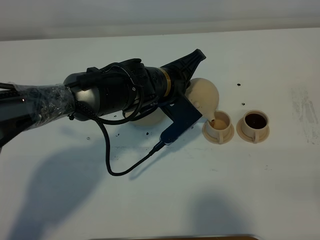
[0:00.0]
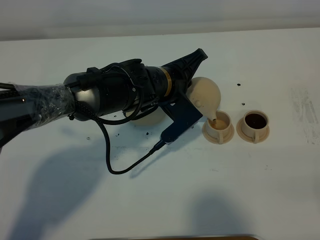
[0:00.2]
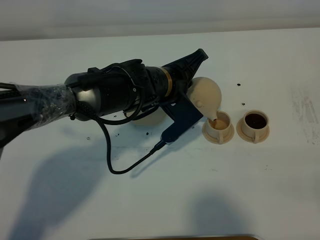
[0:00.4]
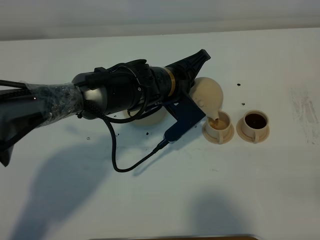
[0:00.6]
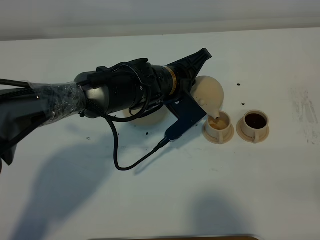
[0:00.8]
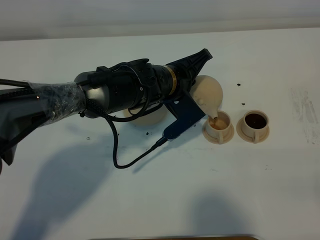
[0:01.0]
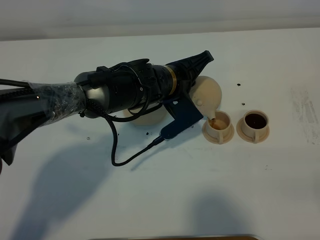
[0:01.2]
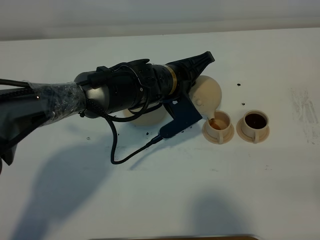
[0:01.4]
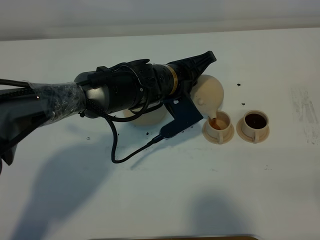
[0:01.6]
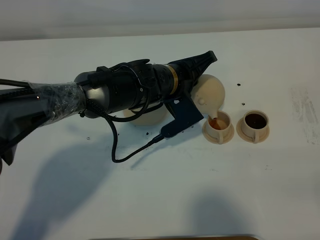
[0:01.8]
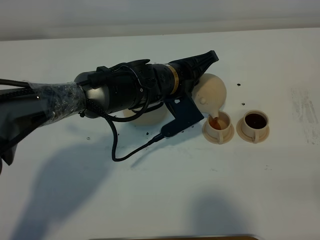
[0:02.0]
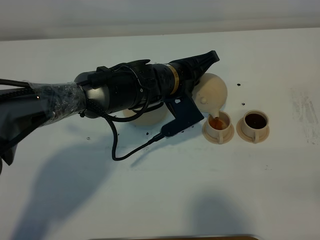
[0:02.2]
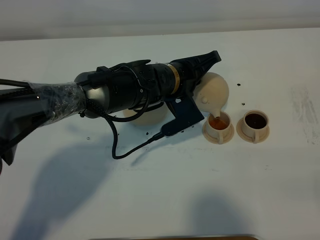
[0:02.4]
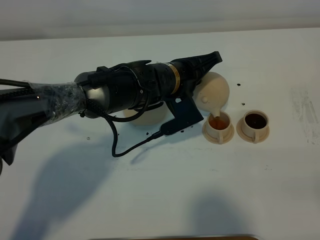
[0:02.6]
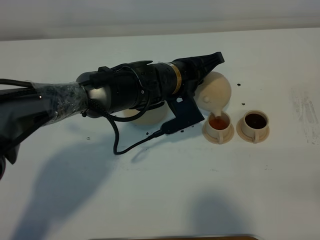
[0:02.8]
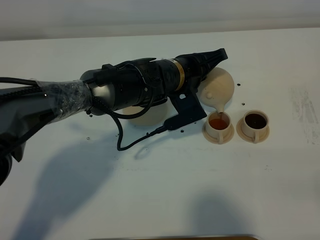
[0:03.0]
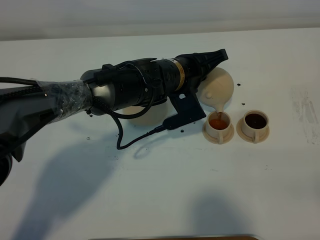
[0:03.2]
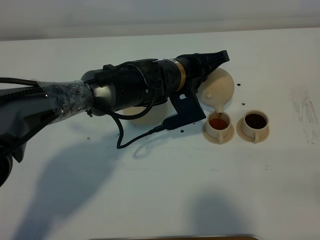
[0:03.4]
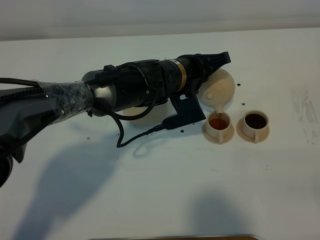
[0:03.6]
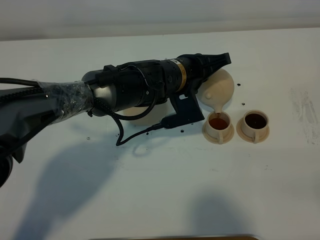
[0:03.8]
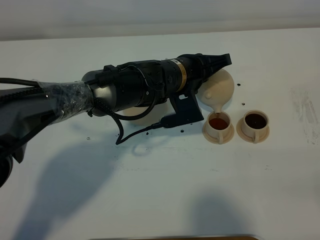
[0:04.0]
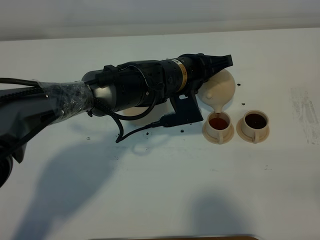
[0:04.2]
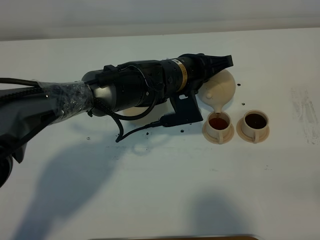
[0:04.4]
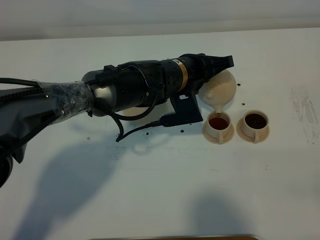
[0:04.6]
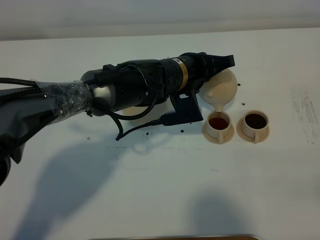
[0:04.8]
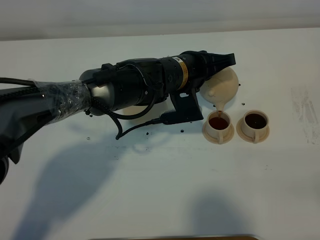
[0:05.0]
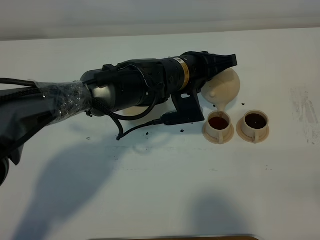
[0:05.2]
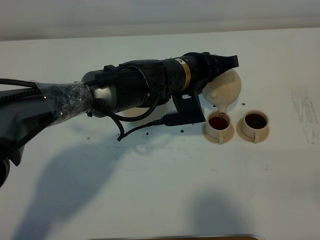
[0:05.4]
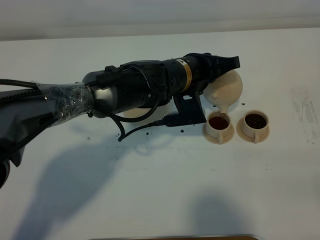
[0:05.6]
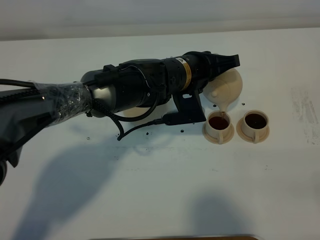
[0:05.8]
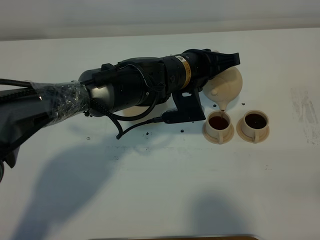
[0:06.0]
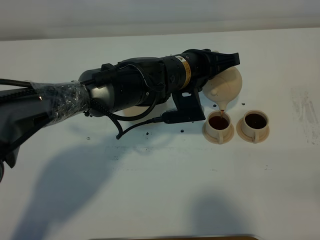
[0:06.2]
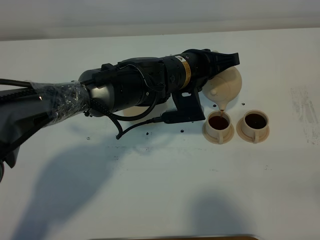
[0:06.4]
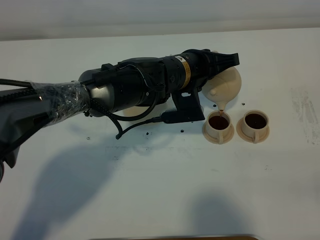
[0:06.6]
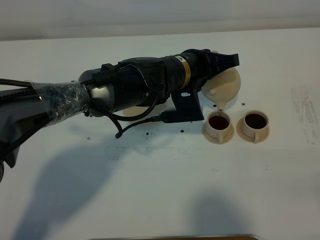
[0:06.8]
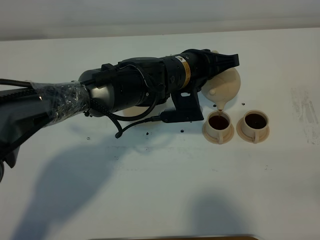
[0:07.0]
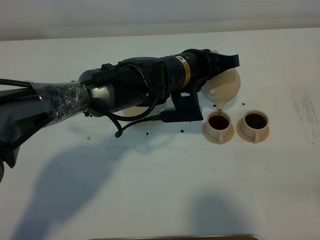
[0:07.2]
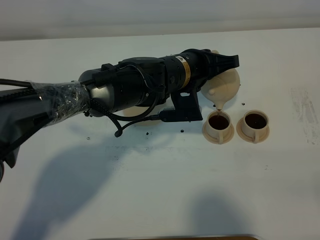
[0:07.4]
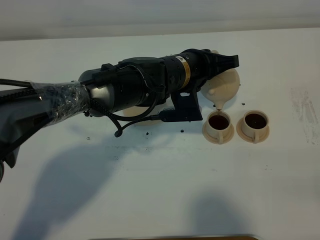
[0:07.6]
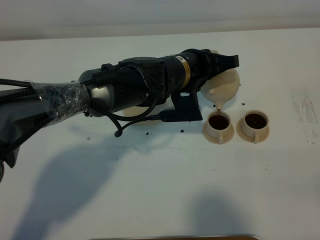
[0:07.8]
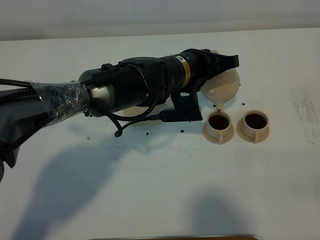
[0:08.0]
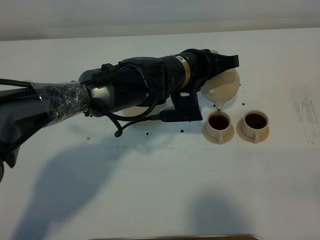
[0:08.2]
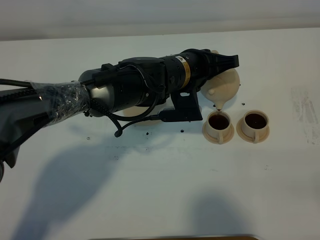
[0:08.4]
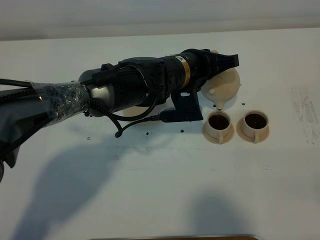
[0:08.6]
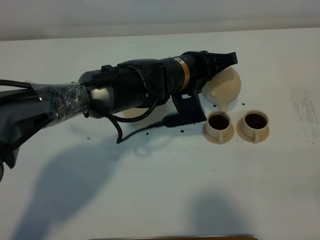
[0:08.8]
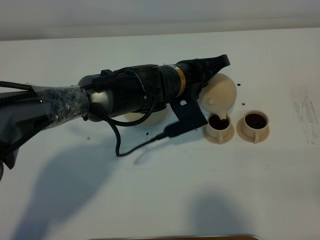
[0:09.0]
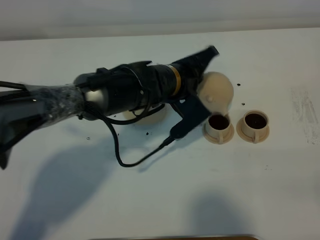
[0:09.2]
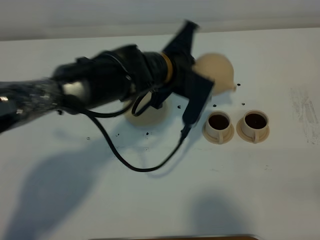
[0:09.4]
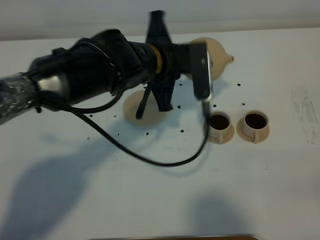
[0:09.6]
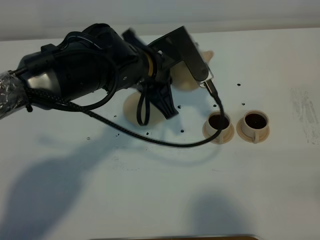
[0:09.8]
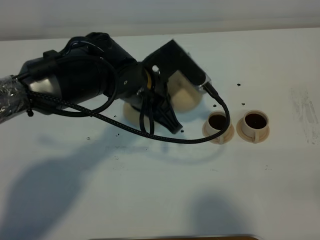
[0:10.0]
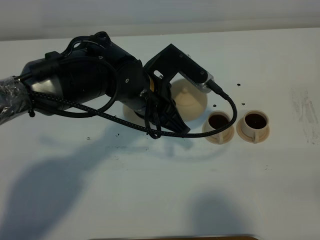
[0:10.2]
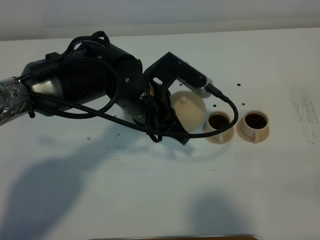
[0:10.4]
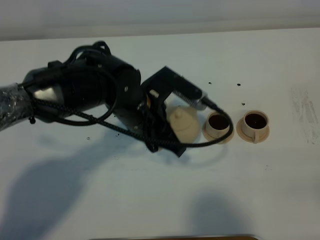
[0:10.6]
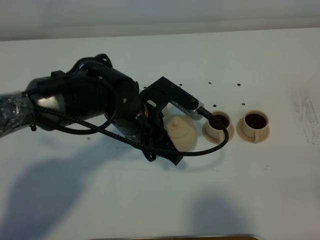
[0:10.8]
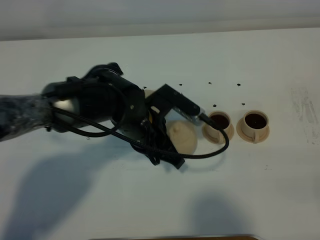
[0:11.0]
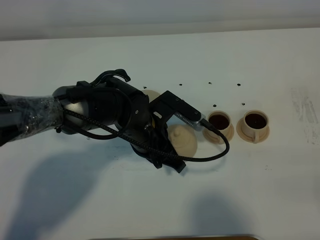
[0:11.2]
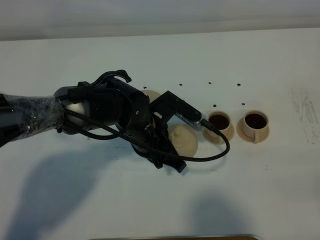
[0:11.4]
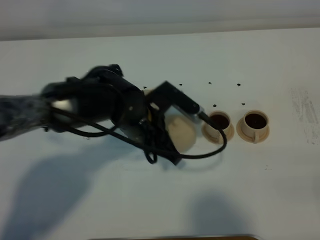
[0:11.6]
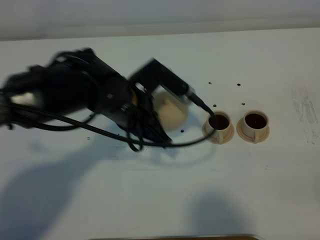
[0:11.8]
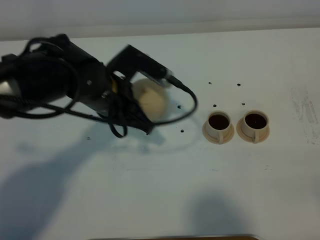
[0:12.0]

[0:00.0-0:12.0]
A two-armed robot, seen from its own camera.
Task of the whole recording: grasp the brown teapot and pour the tea into the two brown teacups one by one, put the brown teapot back in its original place.
Step, 0.0 to 9.0 s: Pour tea into the teacup with the left gripper.
0.0 to 3.0 s: The grippers move only a little.
3.0 to 6.0 s: The grippers stay close to where they were, moving slightly.
6.0 to 7.6 s: The two grippers keep their place.
9.0 to 10.4 s: The left gripper heads to the left and backward, covering roughly 5 cm.
10.4 to 12.0 s: The left gripper shifts about 5 cm to the left, and reaches some 5 cm downward, then returns.

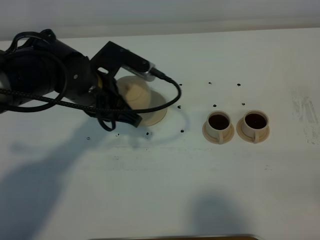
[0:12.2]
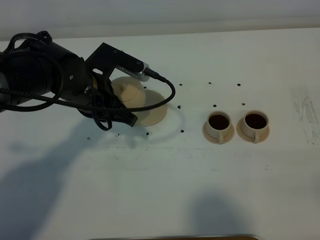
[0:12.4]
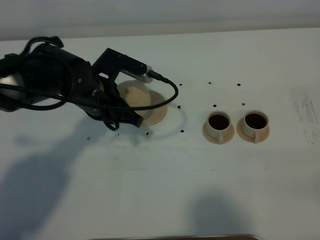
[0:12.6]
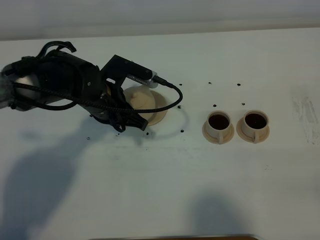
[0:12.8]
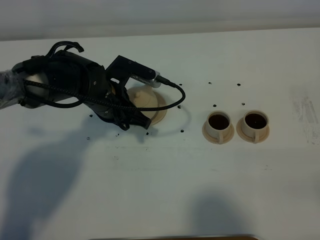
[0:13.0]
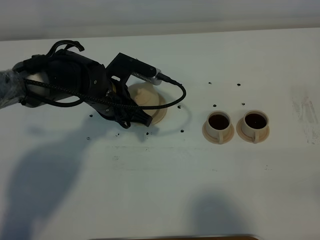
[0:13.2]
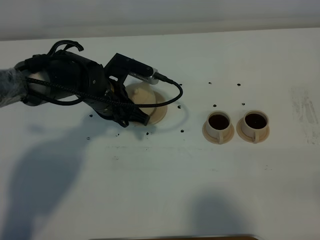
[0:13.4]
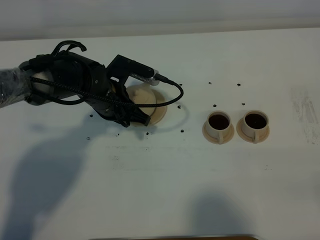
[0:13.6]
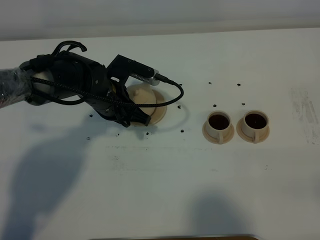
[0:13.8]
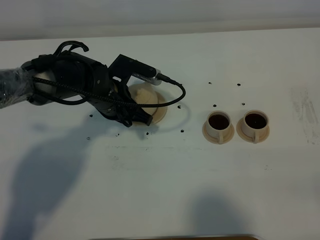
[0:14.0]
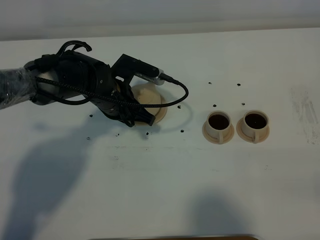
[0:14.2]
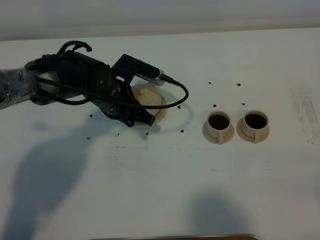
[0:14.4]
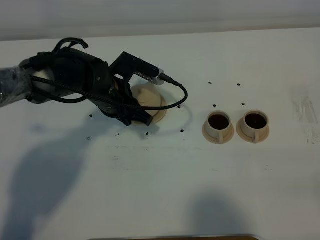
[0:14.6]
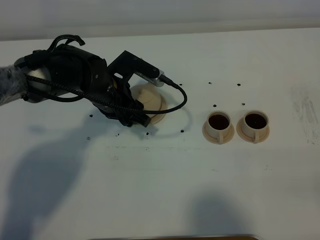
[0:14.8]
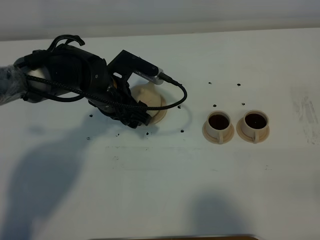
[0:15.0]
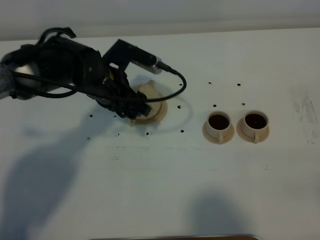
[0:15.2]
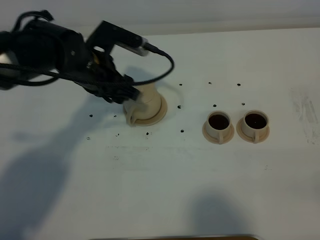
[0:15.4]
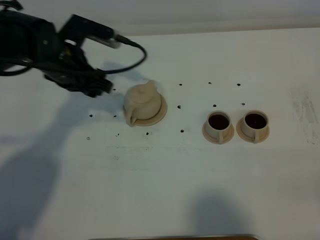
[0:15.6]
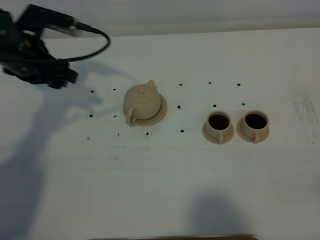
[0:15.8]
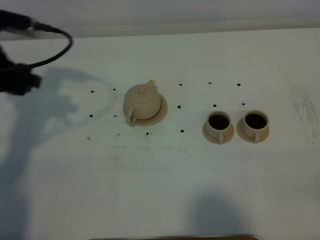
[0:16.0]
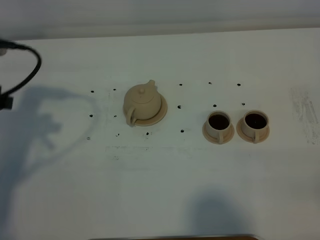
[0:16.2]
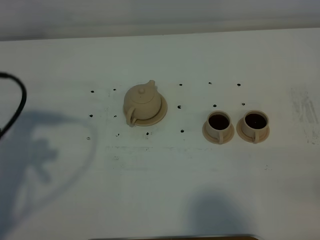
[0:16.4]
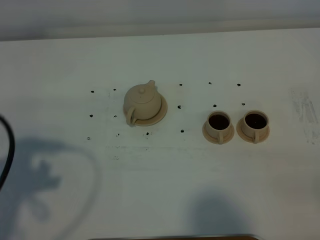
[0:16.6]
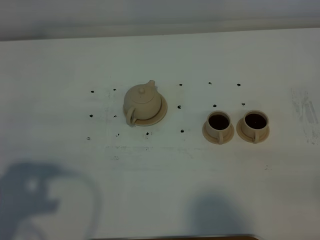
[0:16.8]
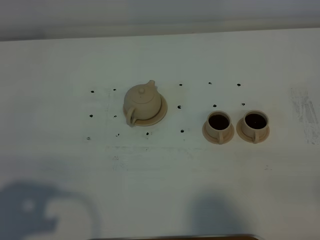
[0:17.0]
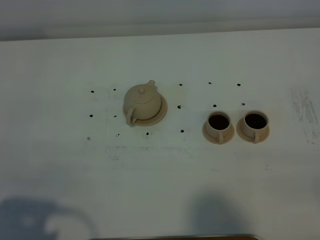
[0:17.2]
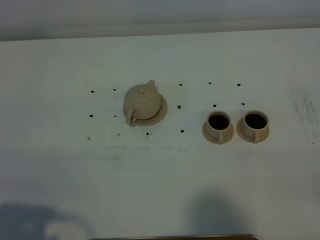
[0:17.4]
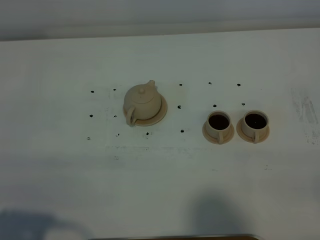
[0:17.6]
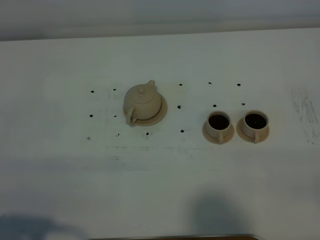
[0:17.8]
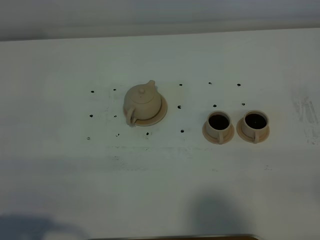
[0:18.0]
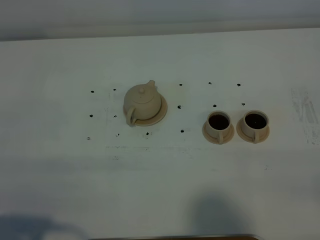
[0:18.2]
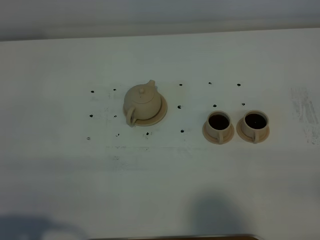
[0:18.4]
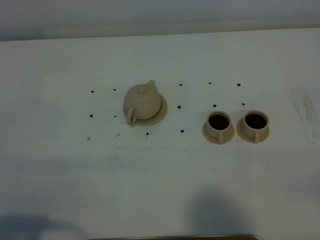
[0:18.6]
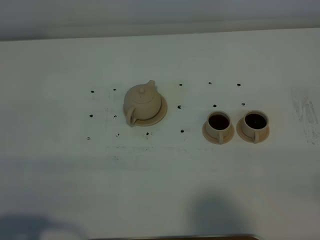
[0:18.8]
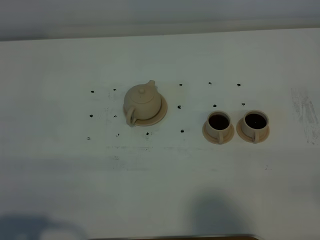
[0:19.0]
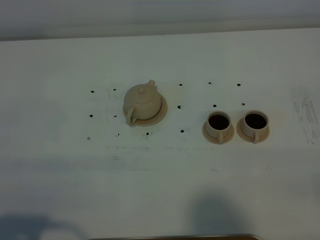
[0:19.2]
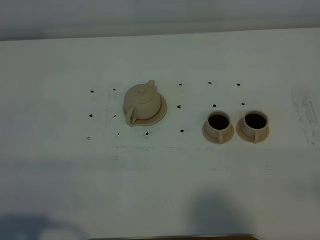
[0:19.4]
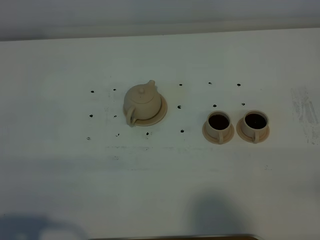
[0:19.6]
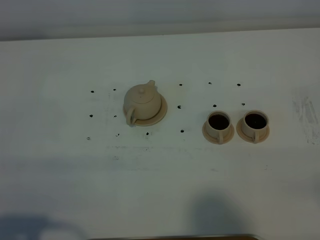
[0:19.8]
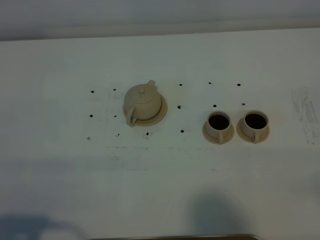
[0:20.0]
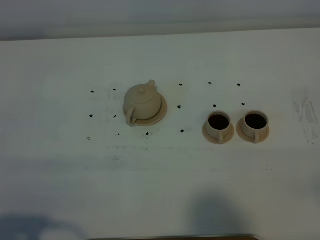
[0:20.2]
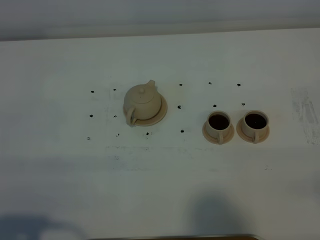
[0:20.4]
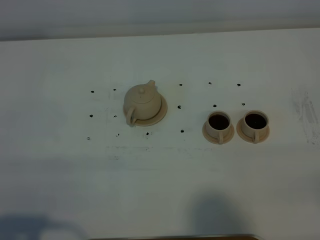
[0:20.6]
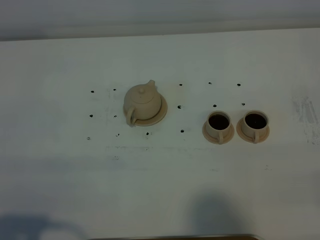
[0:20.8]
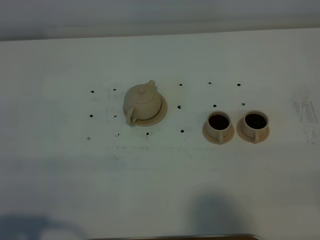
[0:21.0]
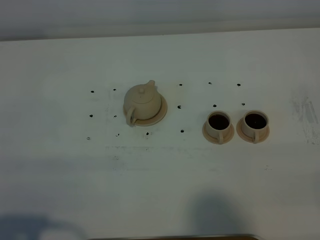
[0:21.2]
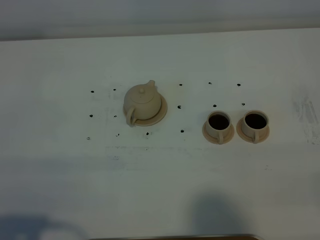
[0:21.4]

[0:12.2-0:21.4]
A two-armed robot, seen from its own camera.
Task of the whole recording: grasp the brown teapot and pour the tea into the two brown teacups one by one, put the brown teapot back in its original place.
12.2 to 13.8 s: The left gripper travels downward by approximately 5 cm.
13.8 to 15.2 s: The left gripper shifts some 5 cm upward, and opens its fingers.
15.2 to 16.8 s: The left gripper is displaced backward and to the left by roughly 35 cm.
16.8 to 18.4 s: The left gripper travels backward by roughly 5 cm.

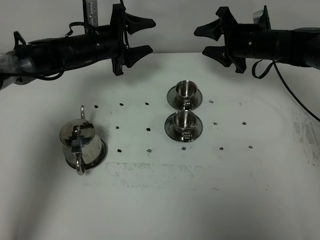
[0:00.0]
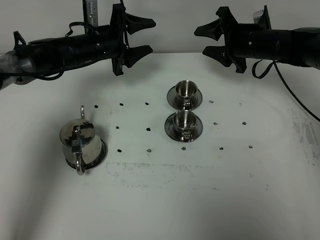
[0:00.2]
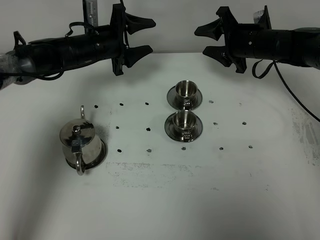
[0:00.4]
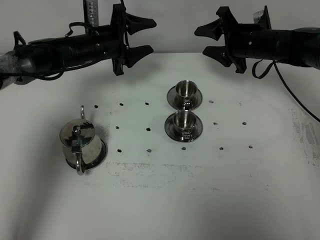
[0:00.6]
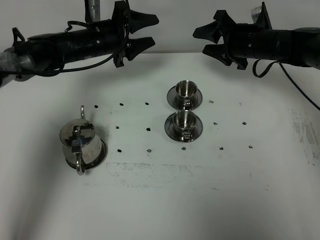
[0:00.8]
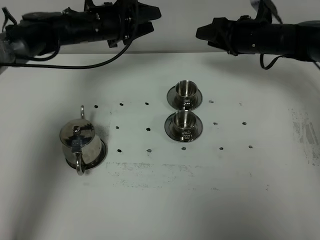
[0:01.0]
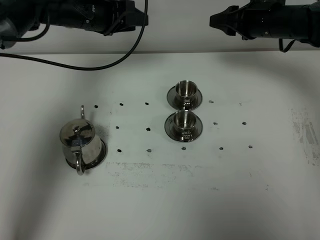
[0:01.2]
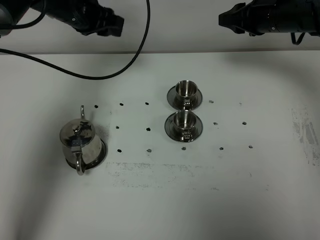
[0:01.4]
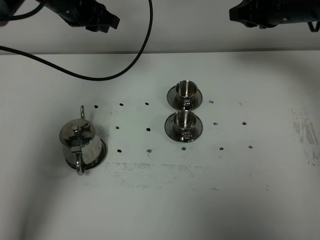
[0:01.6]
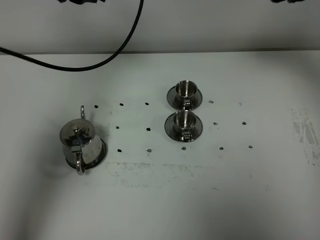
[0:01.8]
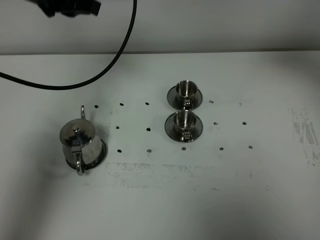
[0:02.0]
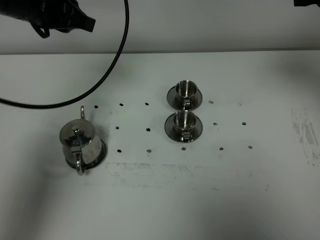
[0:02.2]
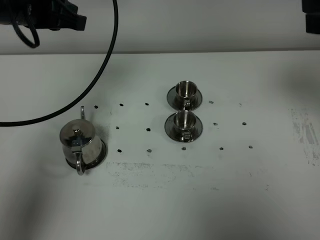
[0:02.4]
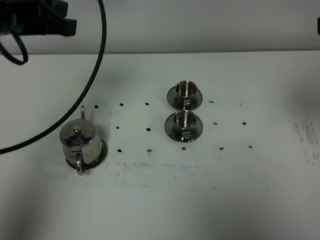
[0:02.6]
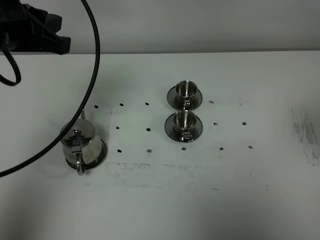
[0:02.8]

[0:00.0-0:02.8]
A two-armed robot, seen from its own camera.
Task of the whole recording: grasp the stainless steel teapot and pour the tea into the two stainless steel teacups one by one, put the stainless steel teapot back in its original place.
0.0 to 1.4 s: The grippers both shift upward by some 10 cm. The right gripper closes. Meanwhile the left gripper closes.
1.4 to 2.8 s: The right gripper moves backward and upward, about 35 cm, and closes. The left gripper shifts roughly 20 cm backward and upward, and closes its fingers.
